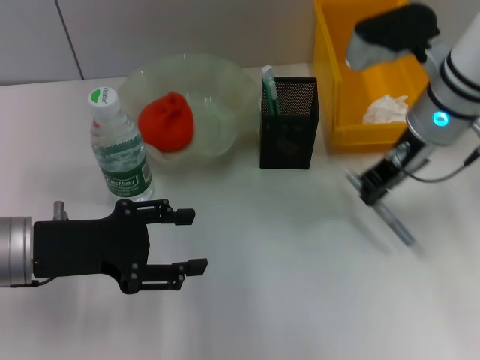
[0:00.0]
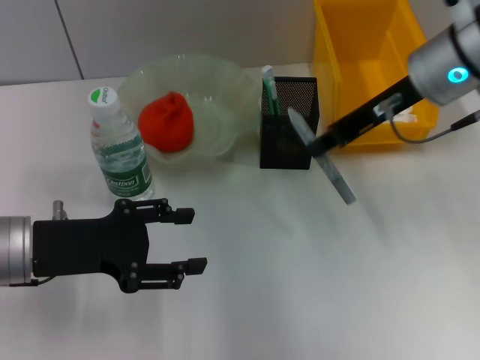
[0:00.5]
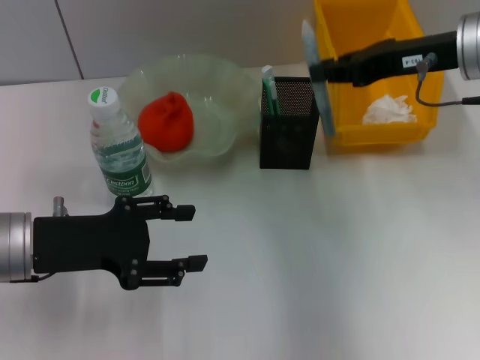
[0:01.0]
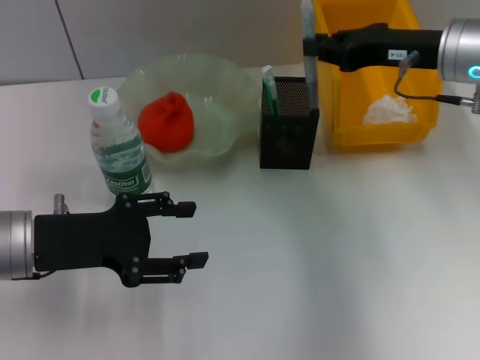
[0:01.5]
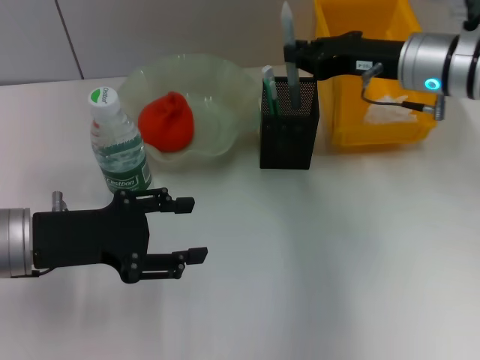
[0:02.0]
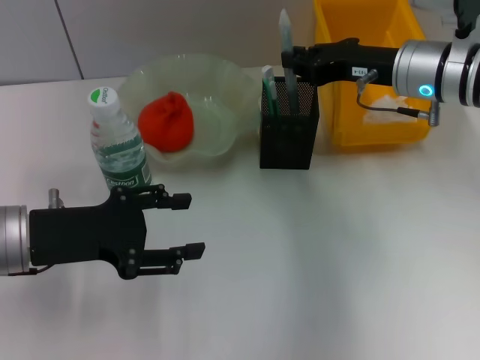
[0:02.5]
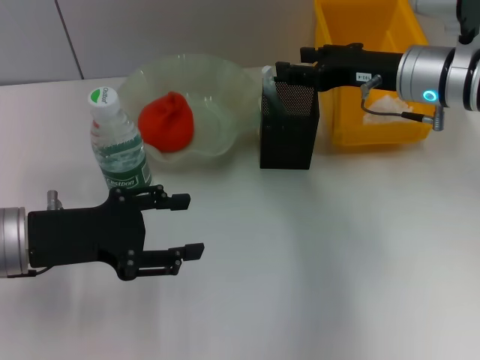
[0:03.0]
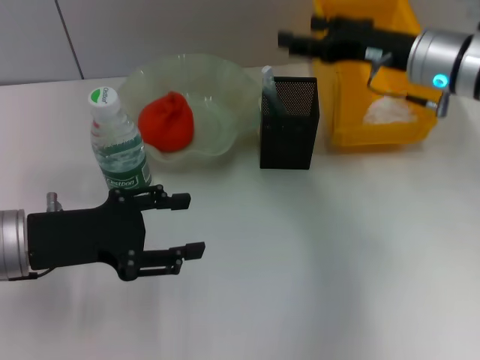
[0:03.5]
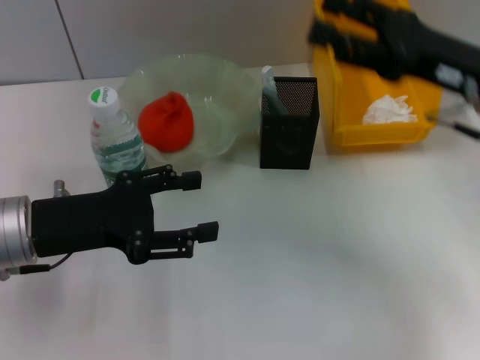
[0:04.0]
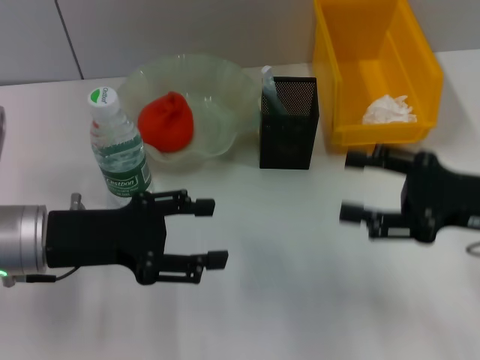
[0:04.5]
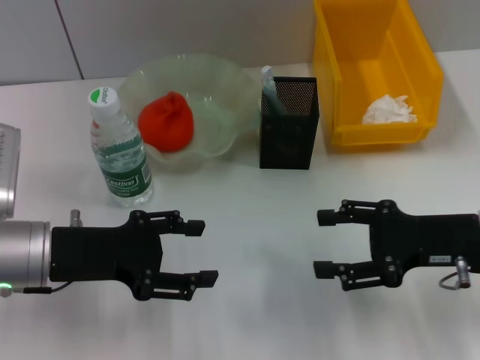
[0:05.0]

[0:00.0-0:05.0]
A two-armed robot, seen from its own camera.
Step, 0.0 to 3.0 s: Place the gray glue into the pen holder with the right hand.
2.5 to 5.0 s: The right gripper shifts about 15 cm backward and downward, and opens.

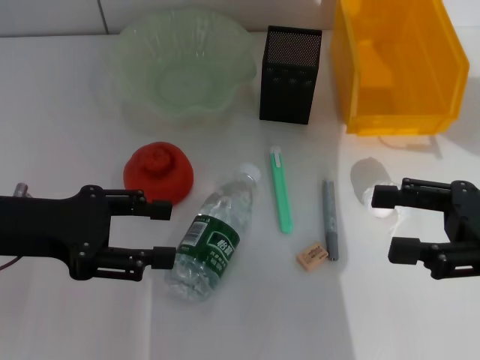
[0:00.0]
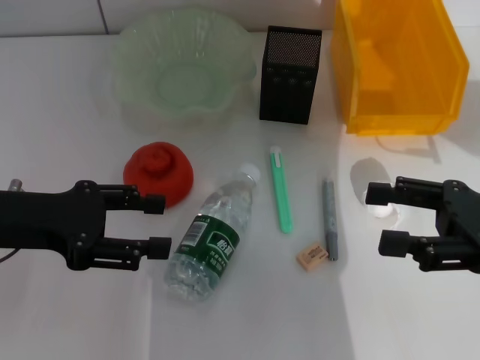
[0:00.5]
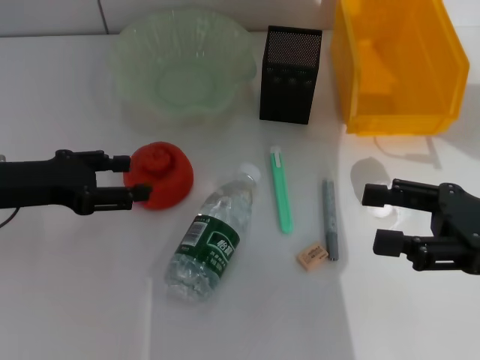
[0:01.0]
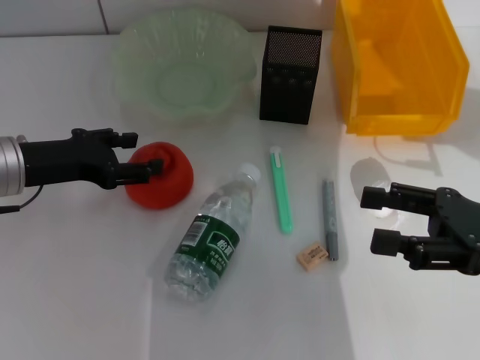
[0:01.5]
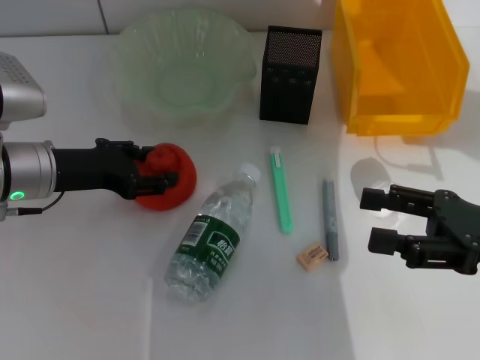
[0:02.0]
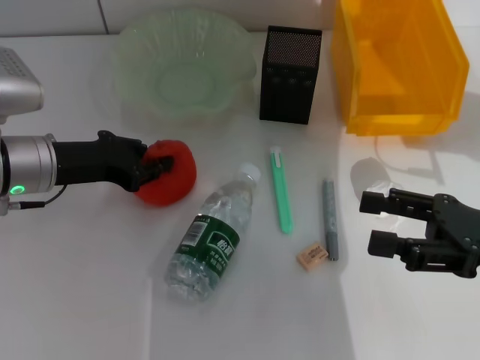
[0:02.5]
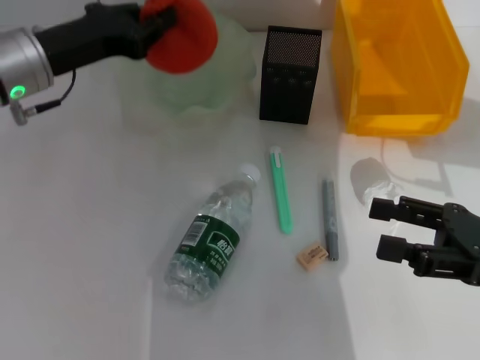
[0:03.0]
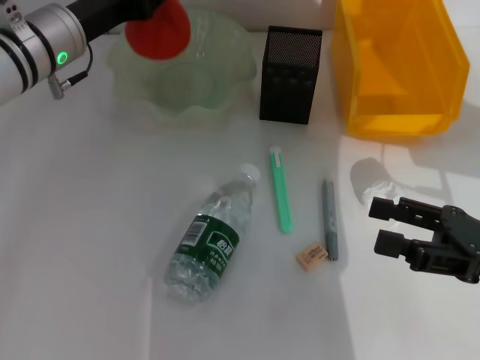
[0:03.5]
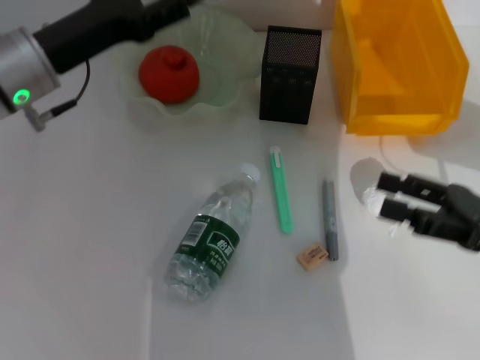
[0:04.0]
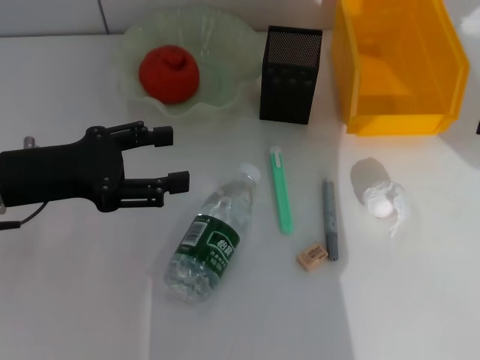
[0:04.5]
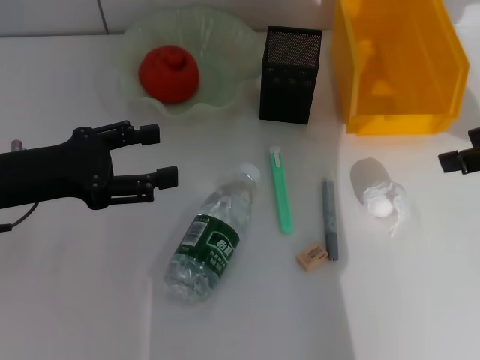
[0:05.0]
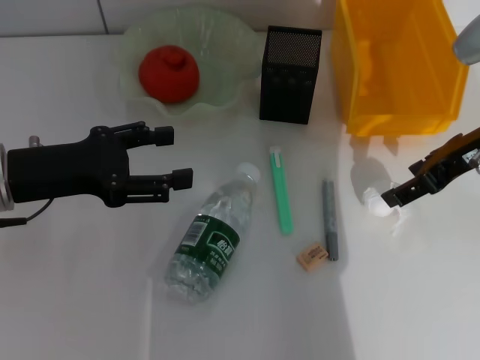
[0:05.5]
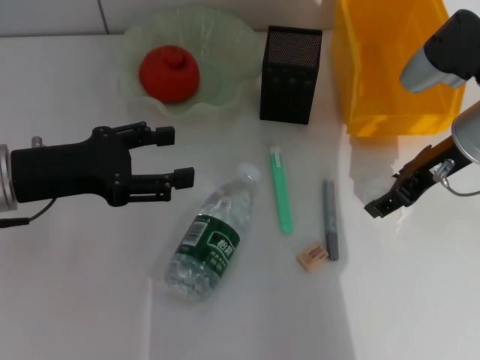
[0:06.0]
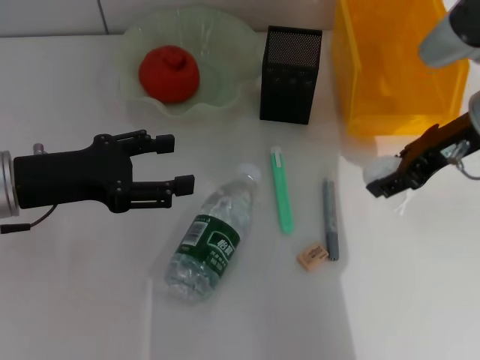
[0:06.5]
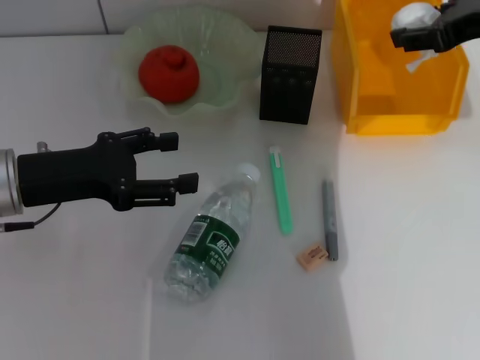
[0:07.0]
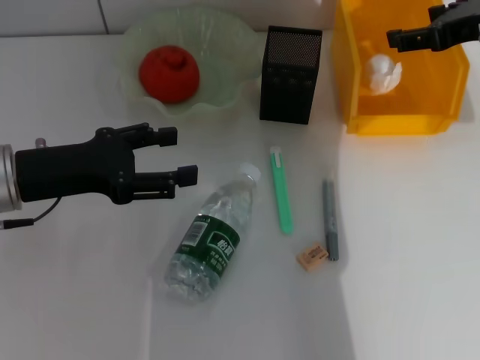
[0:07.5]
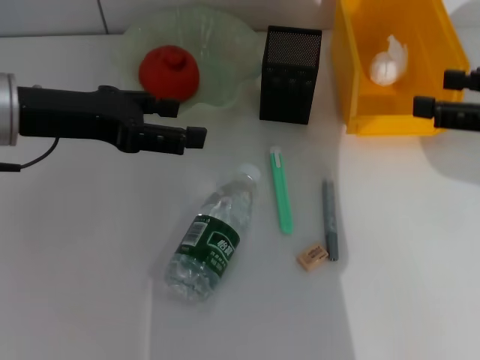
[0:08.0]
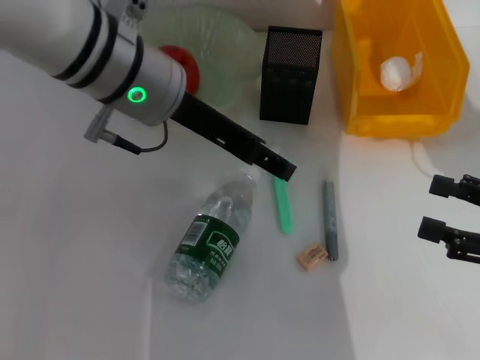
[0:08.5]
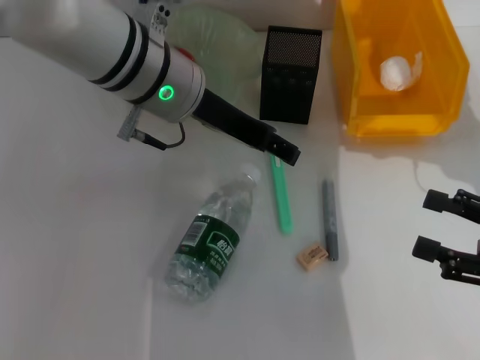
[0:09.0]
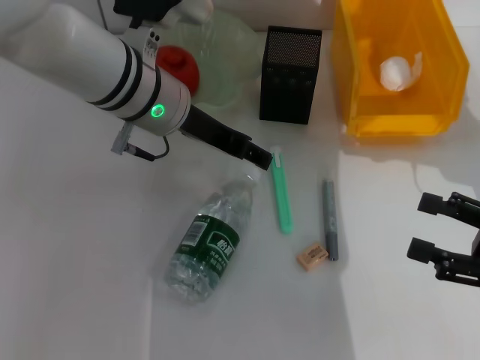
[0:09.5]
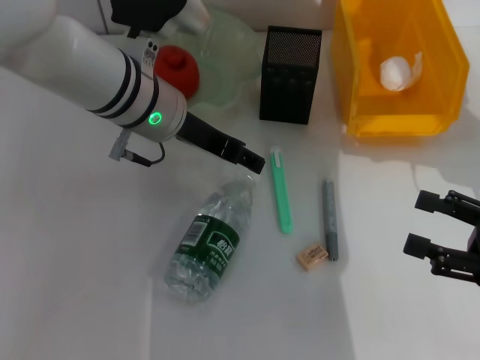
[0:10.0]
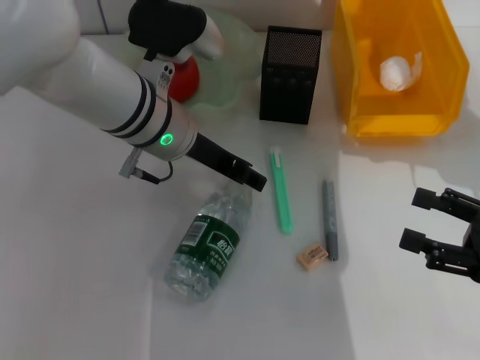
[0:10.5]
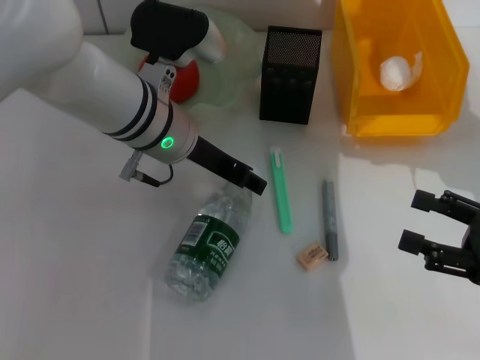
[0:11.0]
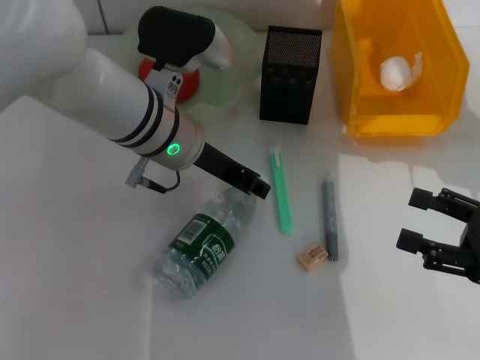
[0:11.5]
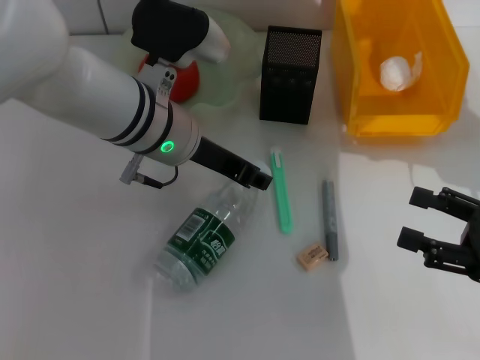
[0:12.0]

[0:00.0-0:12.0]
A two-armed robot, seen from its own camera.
Step, 0.0 to 2.0 s: Grab the orange with the left hand.
Step, 2.5 to 3.5 s: Place the orange into the fruit bowl with the left hand.
Step, 4.0 to 6.0 s: Grab the paper ball with the right hand.
Step, 6.5 to 7.5 s: Place the paper ball into the trash can with the right hand.
Step, 8.0 to 11.5 s: Grab the water bottle with the left hand.
0.0 to 2.0 s: The left gripper goes some 5 cm forward.
2.0 to 4.0 s: The left gripper goes some 5 cm upward, and closes and opens again.
4.0 to 6.0 s: The right gripper goes approximately 15 cm forward and to the left, while the left gripper shifts some 10 cm backward.
6.0 to 8.0 s: The right gripper heads to the right, backward and upward, covering approximately 15 cm, while the left gripper heads upward, covering about 5 cm.
8.0 to 10.0 s: The right gripper heads downward and backward, covering roughly 15 cm; the left gripper goes approximately 15 cm to the right and forward.
10.0 to 12.0 s: The left gripper closes.

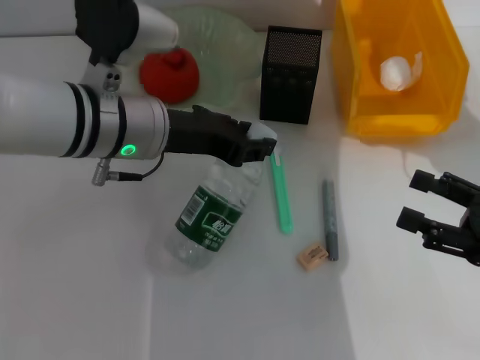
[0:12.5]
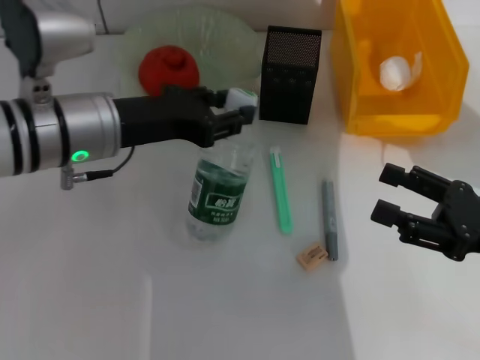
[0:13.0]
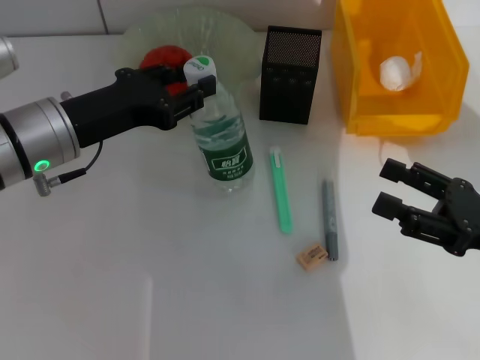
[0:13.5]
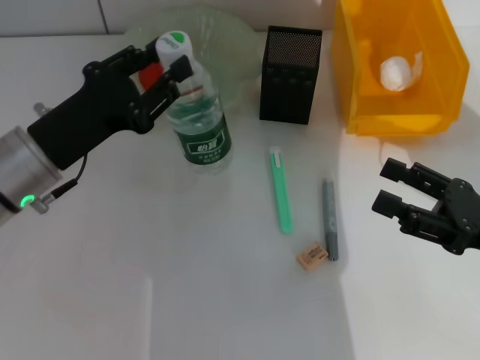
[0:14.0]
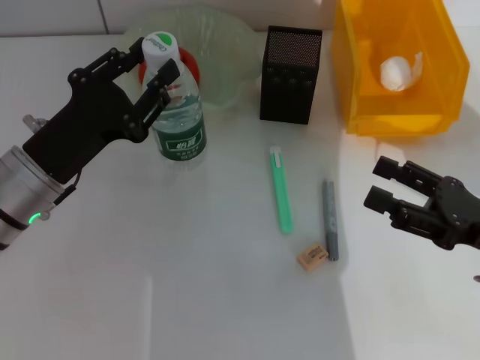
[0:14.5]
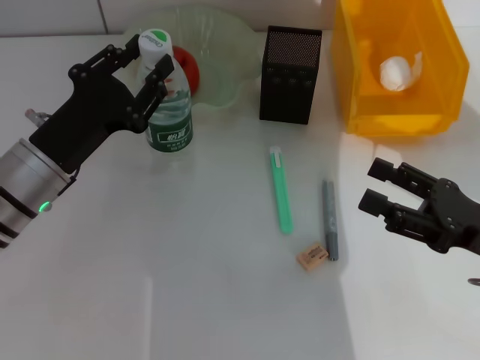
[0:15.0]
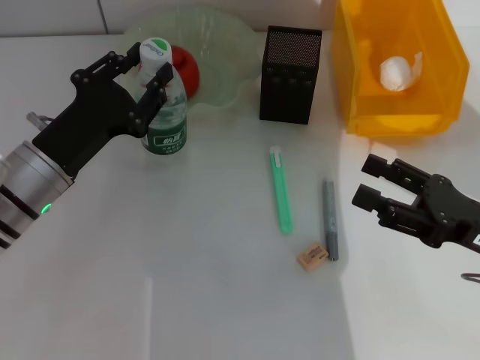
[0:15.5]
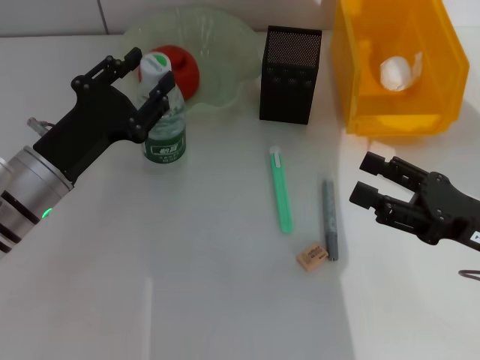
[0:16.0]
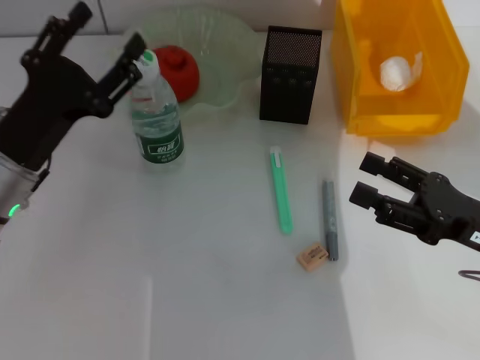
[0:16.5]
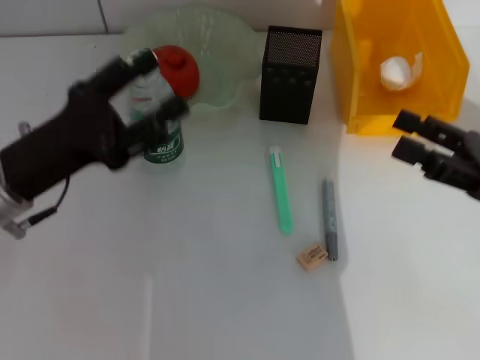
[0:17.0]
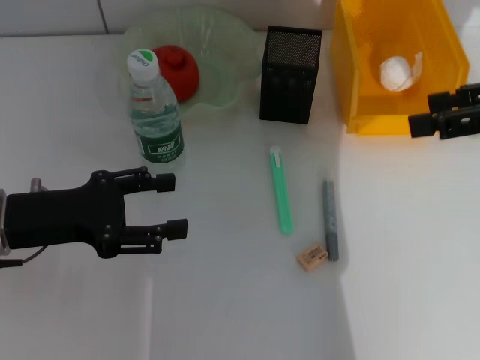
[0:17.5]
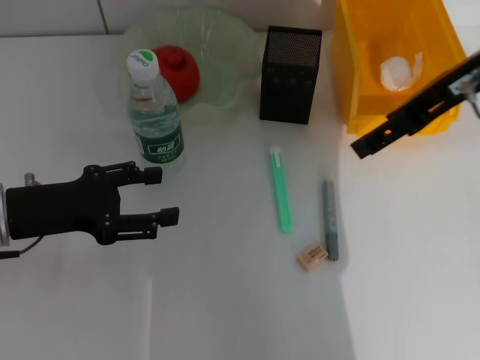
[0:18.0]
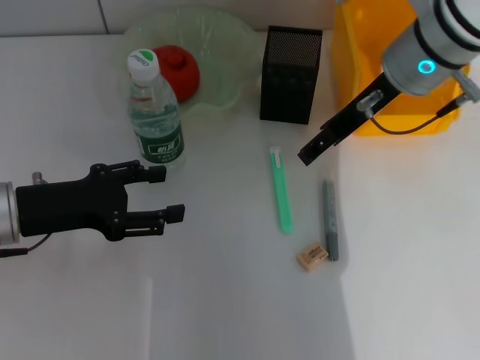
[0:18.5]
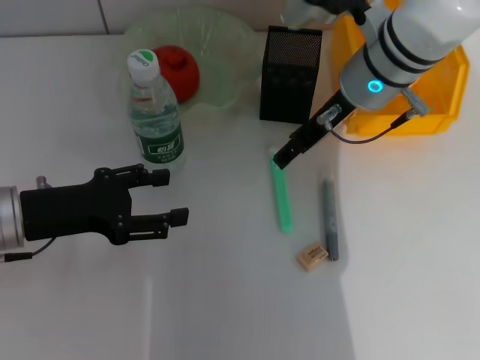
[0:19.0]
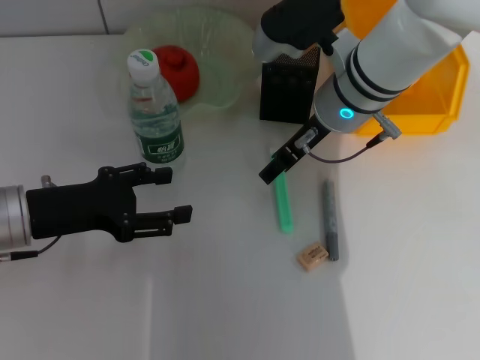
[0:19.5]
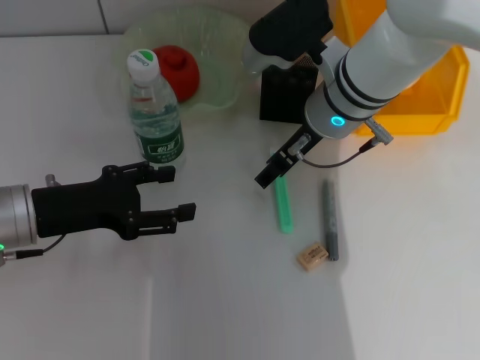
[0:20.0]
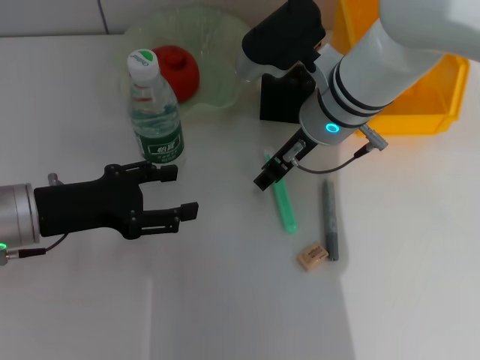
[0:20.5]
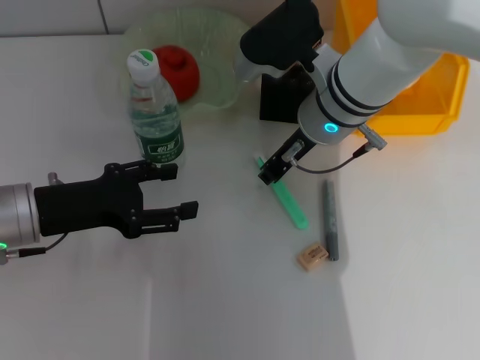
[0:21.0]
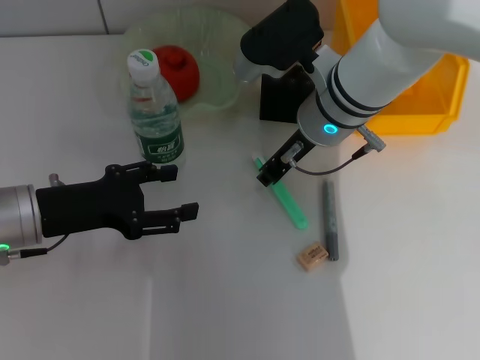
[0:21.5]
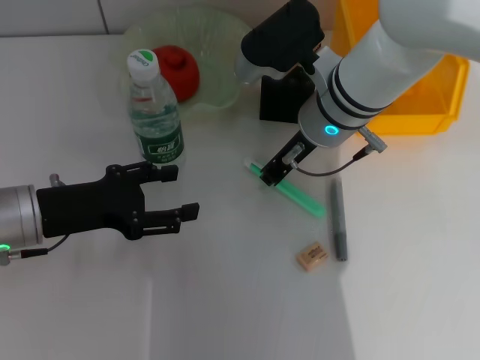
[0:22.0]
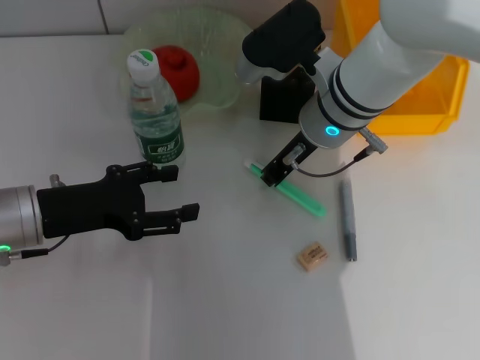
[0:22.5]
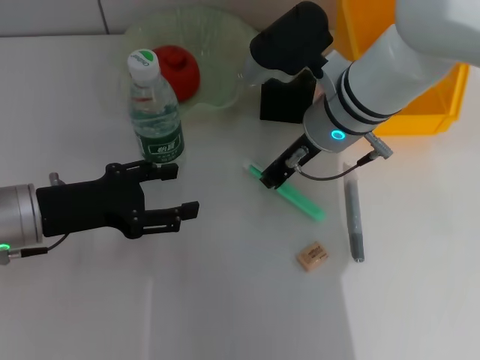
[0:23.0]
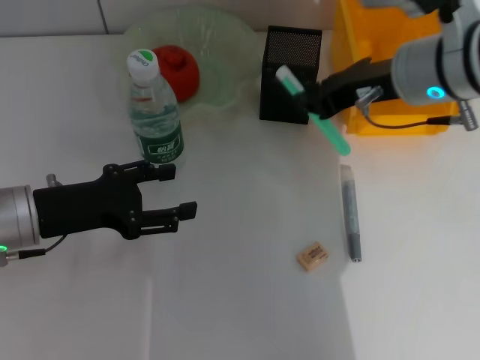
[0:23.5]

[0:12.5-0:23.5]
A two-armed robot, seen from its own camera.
Step, 12.5 to 16.0 s: Place the water bottle on the table with the left hand.
Step, 16.5 to 22.5 s: Grab the blue utility knife with the right hand.
12.5 to 14.5 s: The left gripper heads to the left, downward and backward, covering roughly 15 cm.
14.5 to 16.0 s: There are only small adjustments of the grippers.
16.0 to 18.0 s: The right gripper heads upward and forward, covering about 25 cm. Meanwhile the left gripper moves to the left, approximately 5 cm, and opens.
18.0 to 20.0 s: The right gripper shifts some 15 cm downward and to the left.
20.0 to 21.5 s: The right gripper closes its fingers.
21.5 to 23.5 s: The right gripper shifts about 10 cm to the right and upward.
